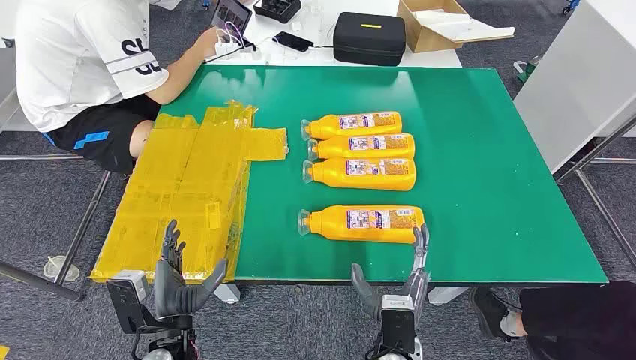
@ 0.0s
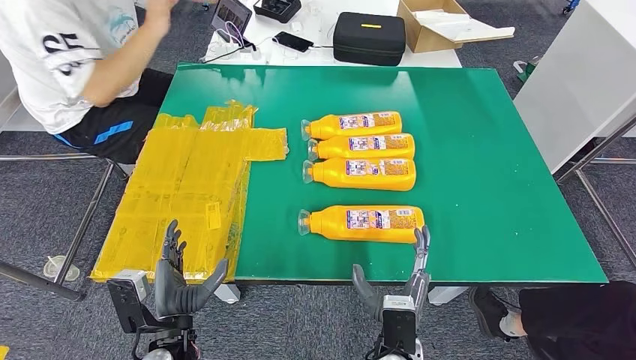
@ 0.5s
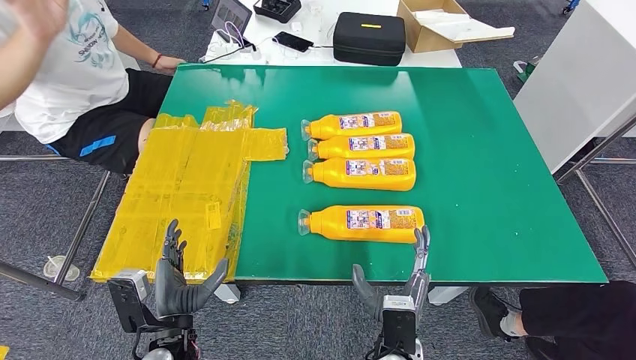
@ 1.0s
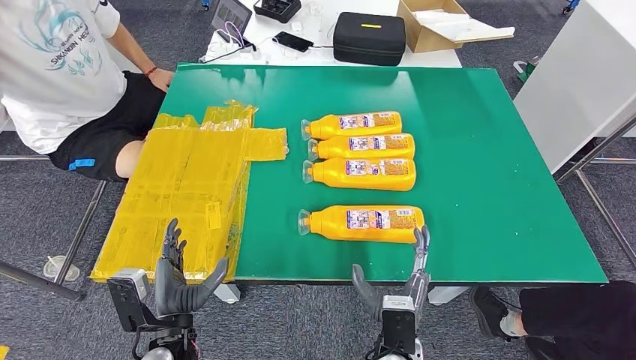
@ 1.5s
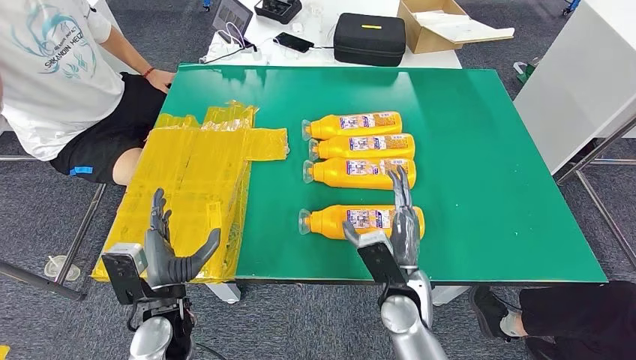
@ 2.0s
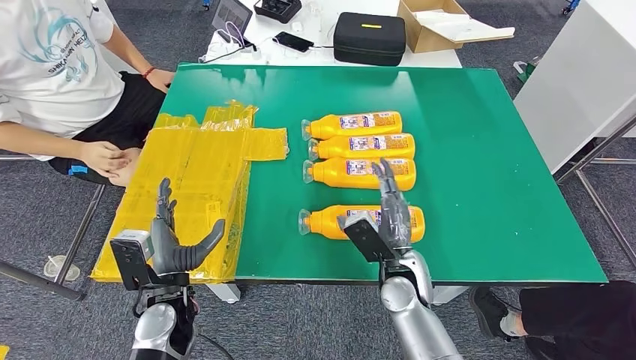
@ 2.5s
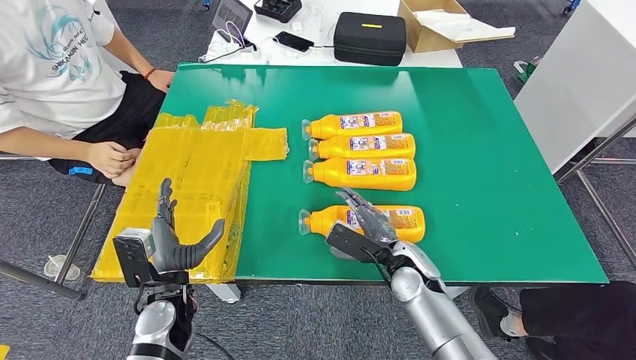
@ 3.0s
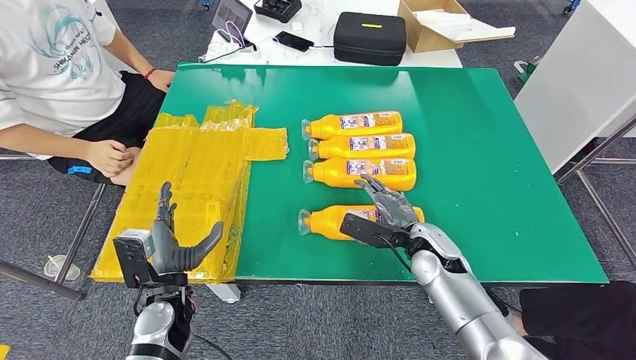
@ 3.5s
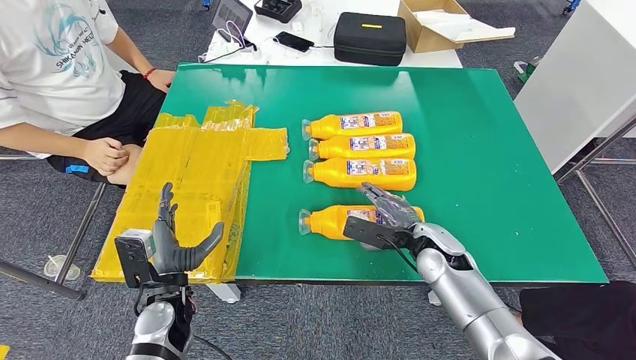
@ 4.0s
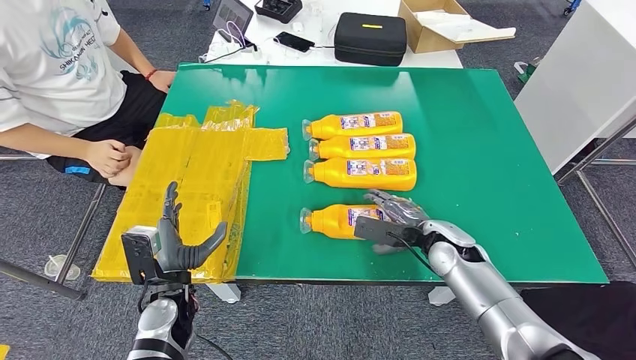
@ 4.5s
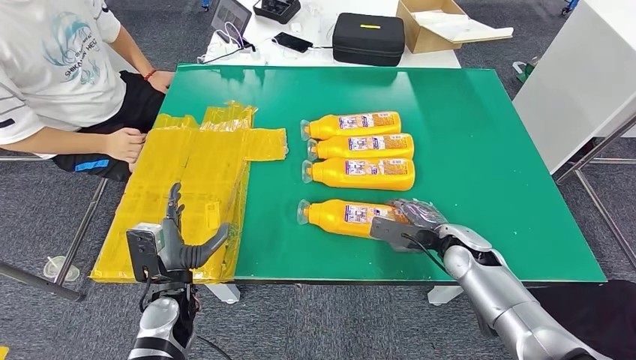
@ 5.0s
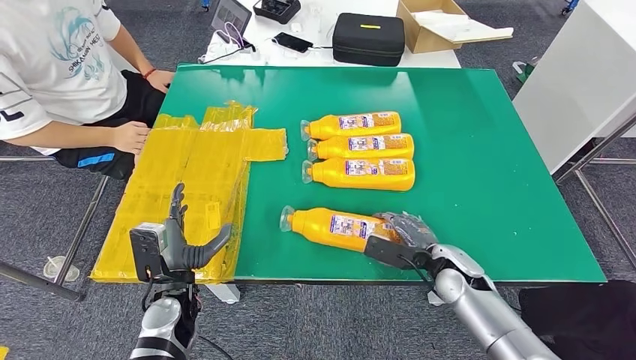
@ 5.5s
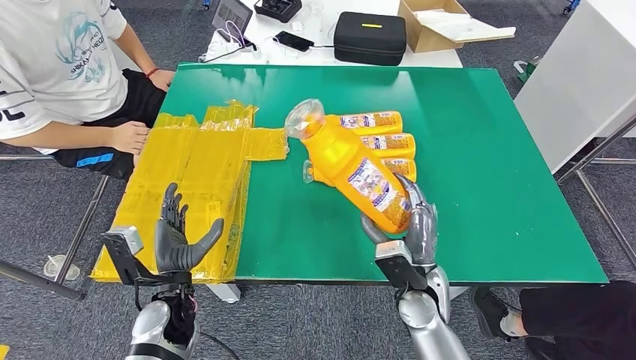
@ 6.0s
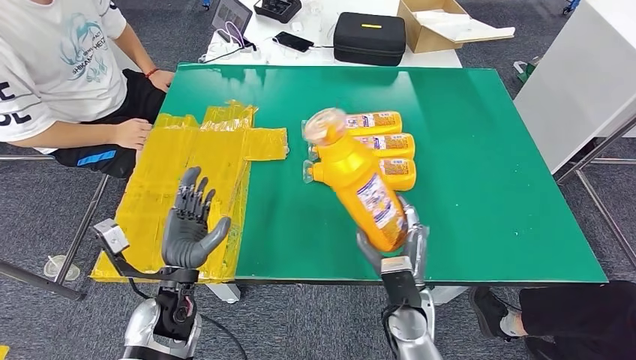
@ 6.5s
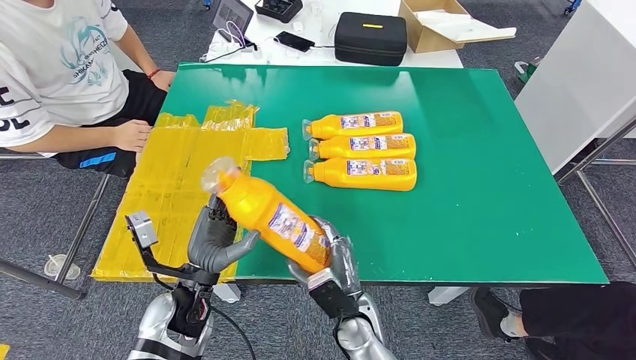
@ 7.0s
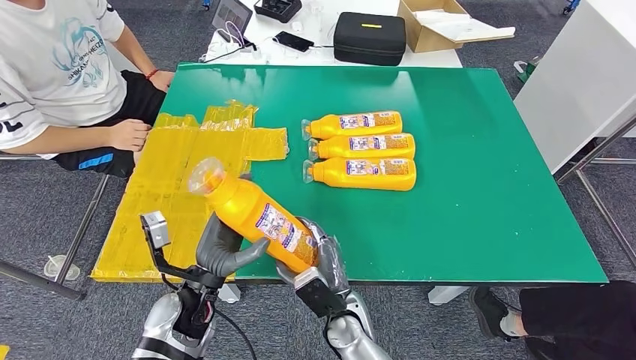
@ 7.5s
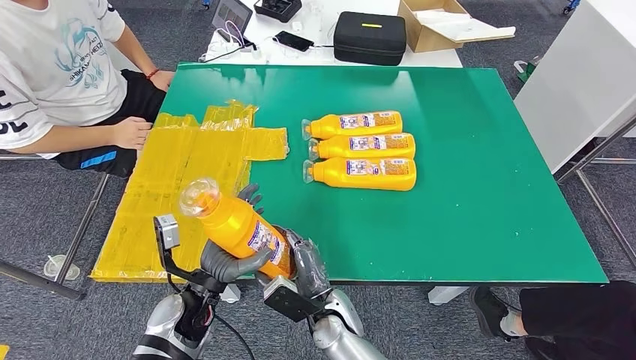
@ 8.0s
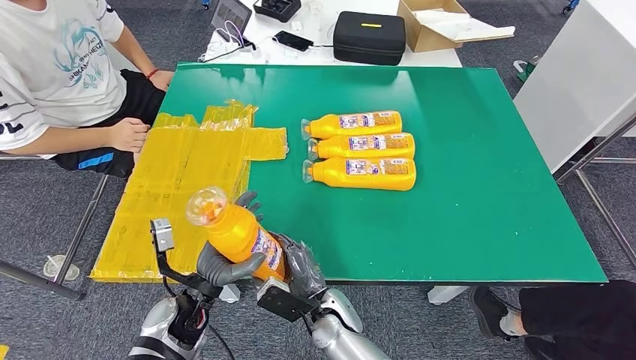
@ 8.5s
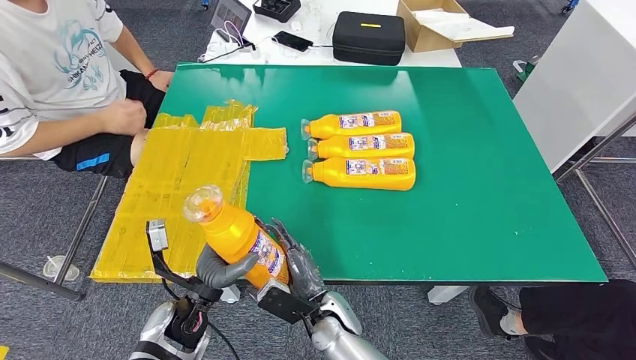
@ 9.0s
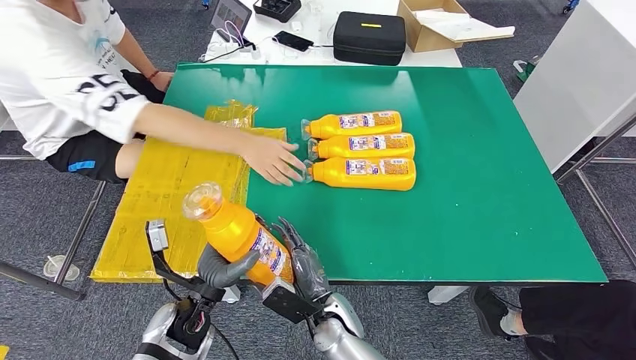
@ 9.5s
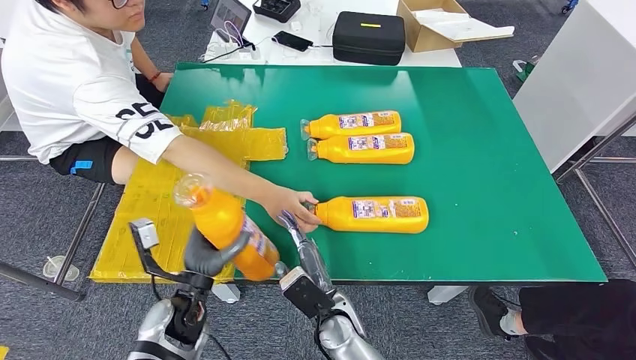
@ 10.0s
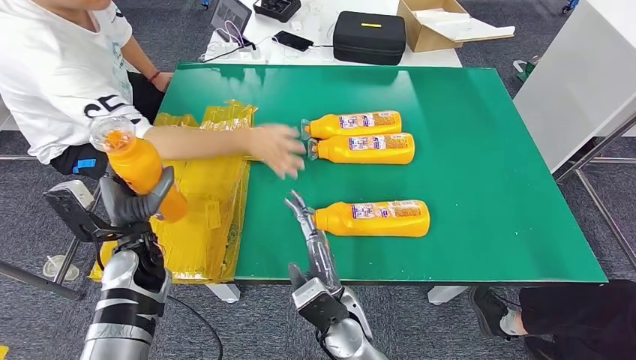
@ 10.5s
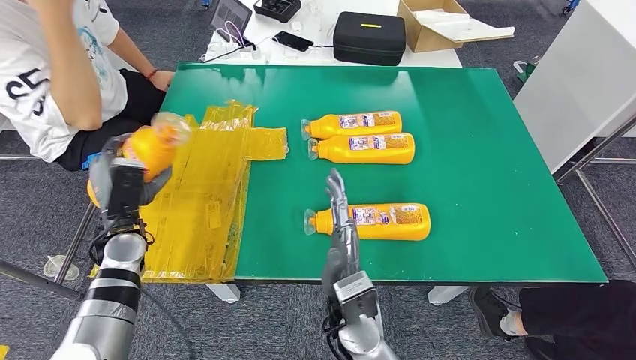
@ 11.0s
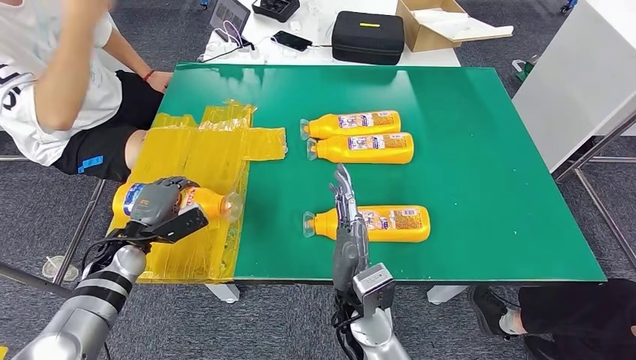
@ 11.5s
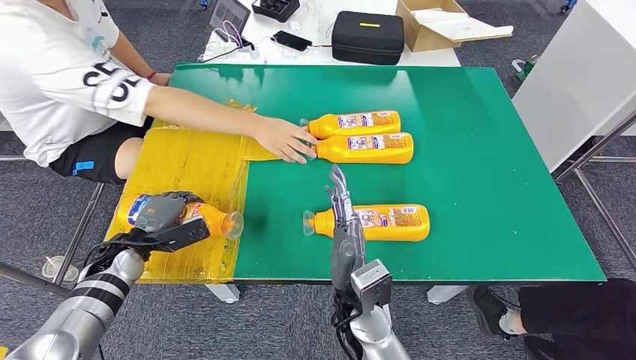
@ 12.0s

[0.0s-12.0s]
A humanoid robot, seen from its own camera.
Step, 0.0s to 8.5s: Take the bottle from the table.
2.0s to 4.0s: The right hand travels to the right and forward by roughly 10 cm.
4.0s to 6.0s: The right hand is displaced backward and to the left by approximately 10 cm.
6.0s to 8.0s: The right hand moves to the left and downward, about 15 cm.

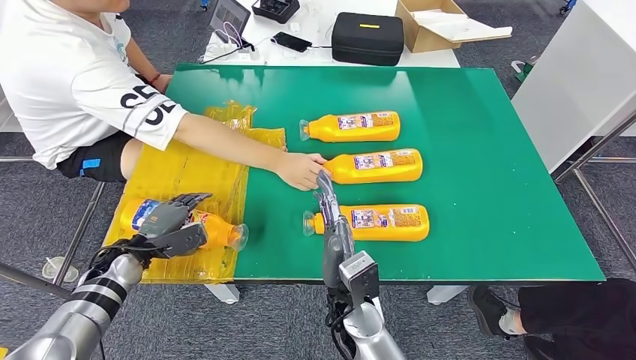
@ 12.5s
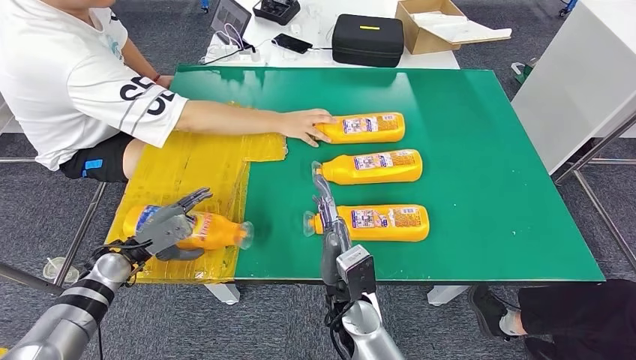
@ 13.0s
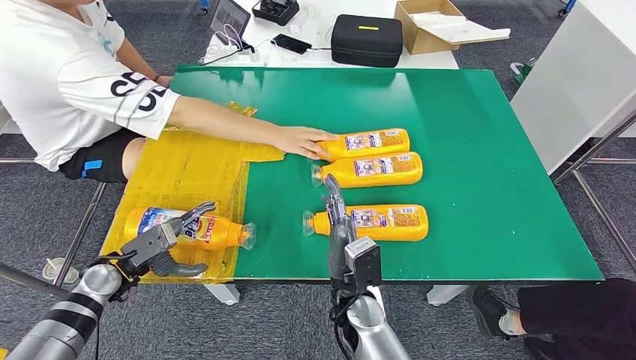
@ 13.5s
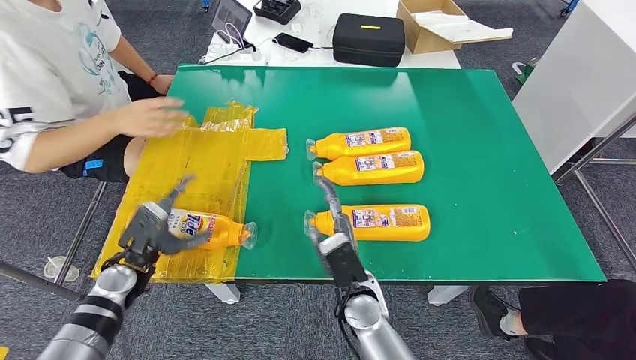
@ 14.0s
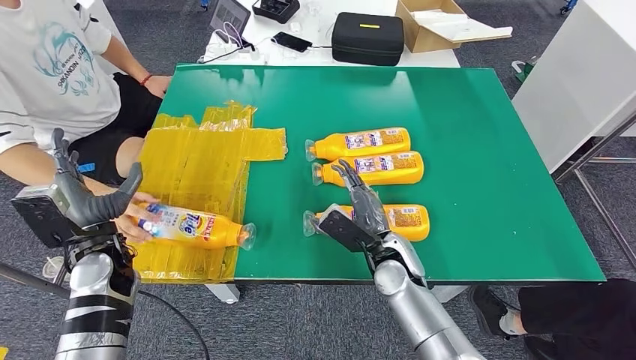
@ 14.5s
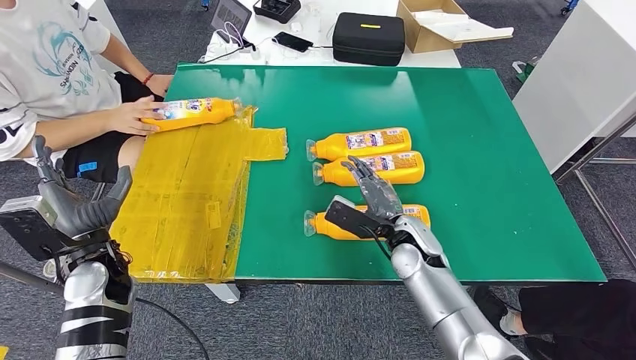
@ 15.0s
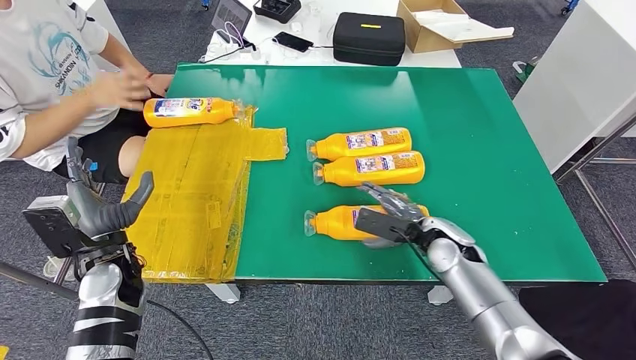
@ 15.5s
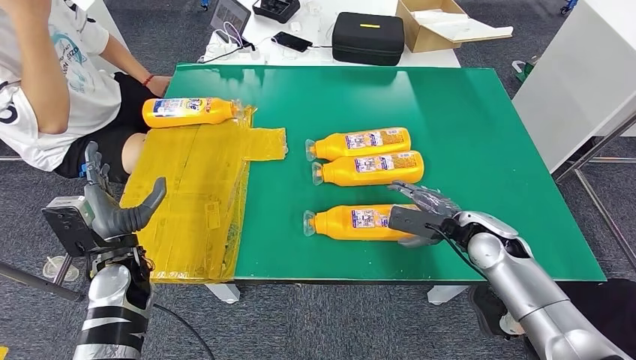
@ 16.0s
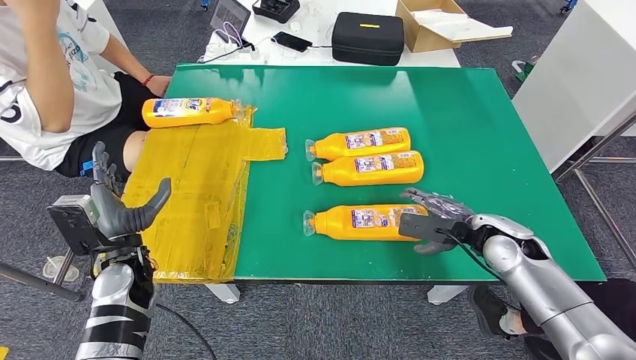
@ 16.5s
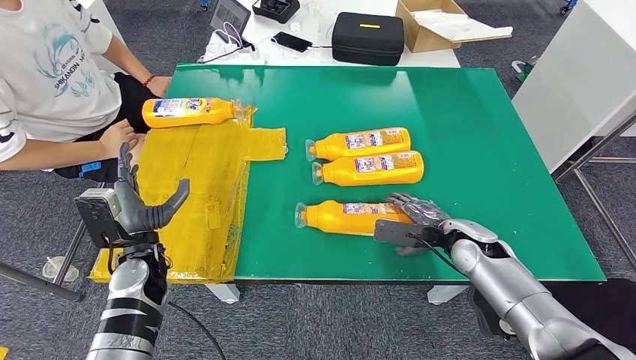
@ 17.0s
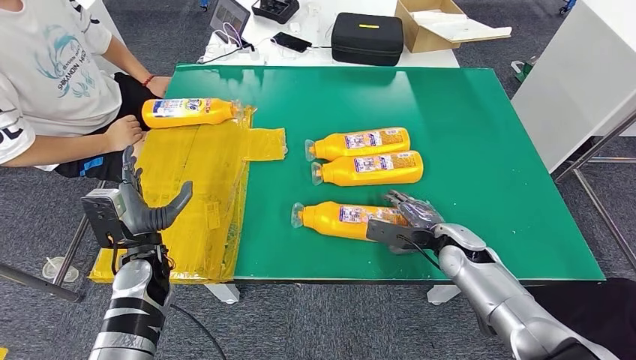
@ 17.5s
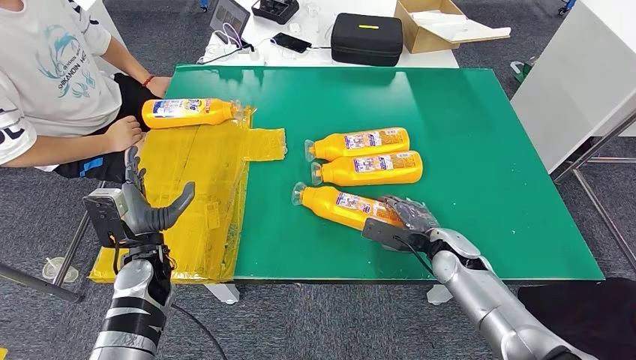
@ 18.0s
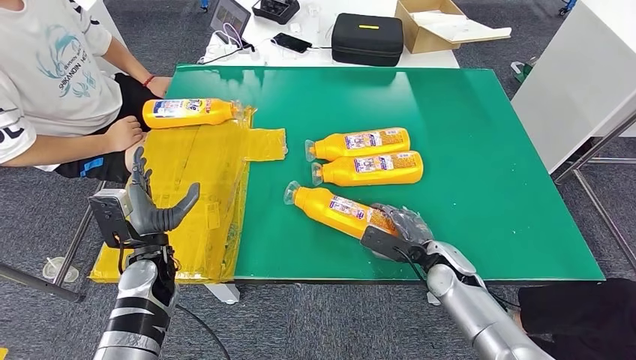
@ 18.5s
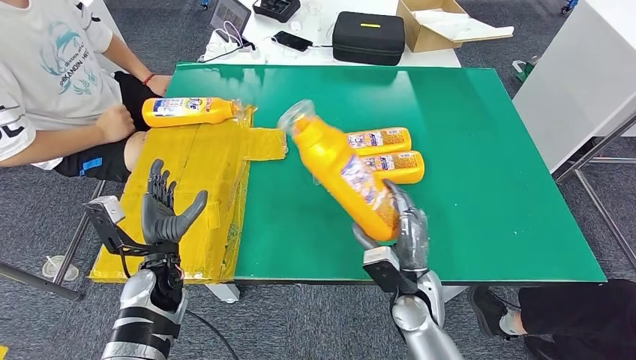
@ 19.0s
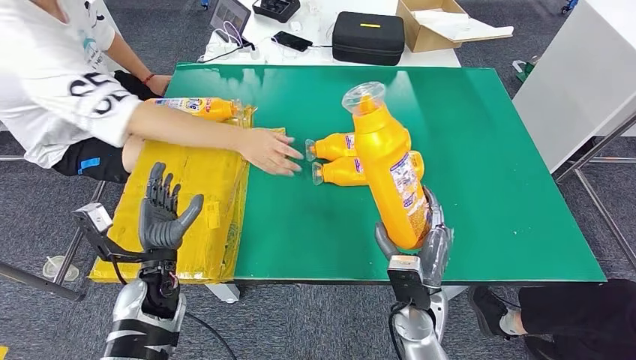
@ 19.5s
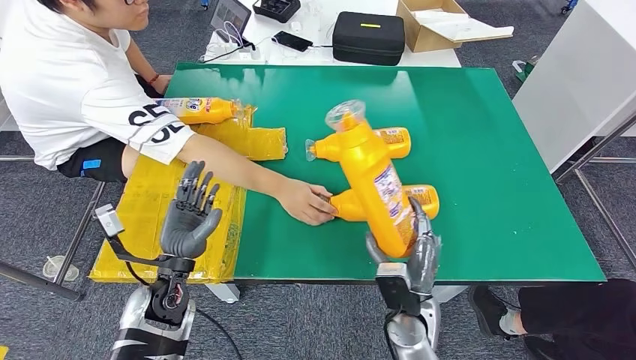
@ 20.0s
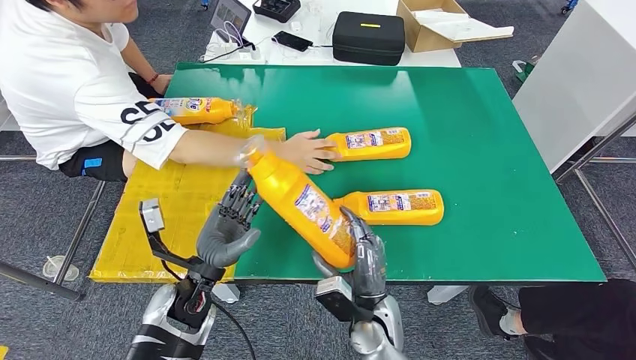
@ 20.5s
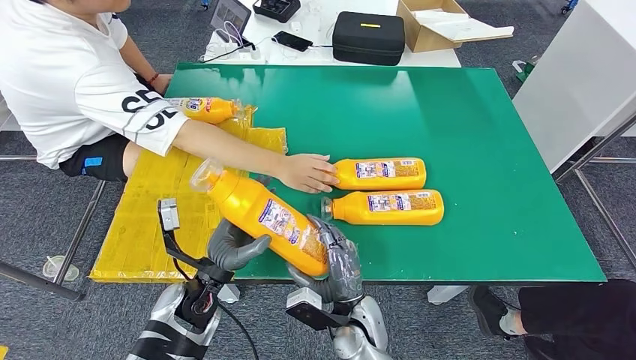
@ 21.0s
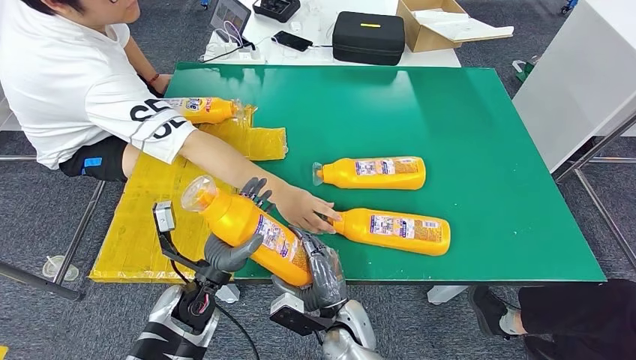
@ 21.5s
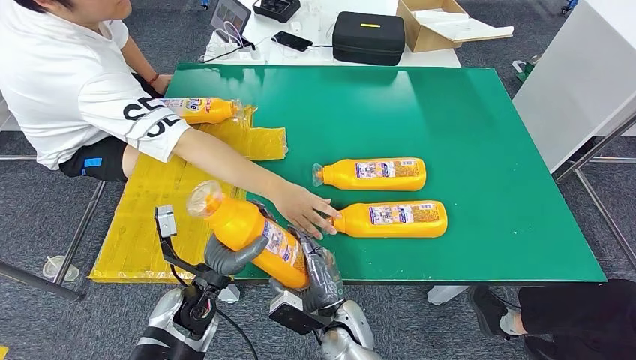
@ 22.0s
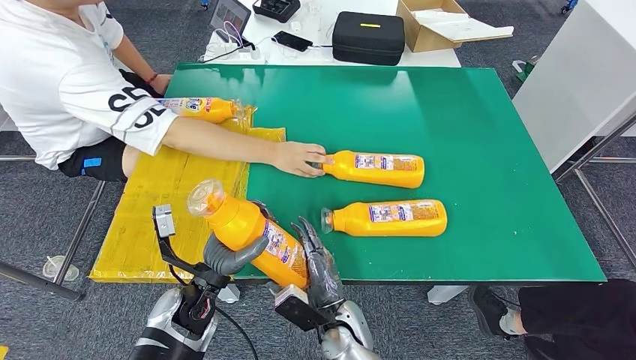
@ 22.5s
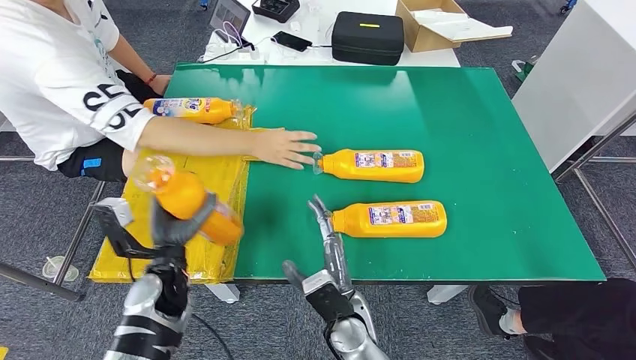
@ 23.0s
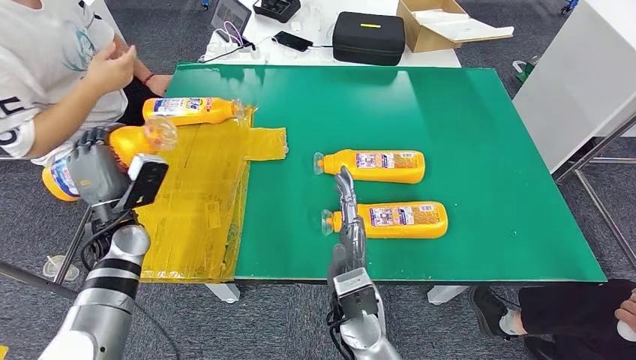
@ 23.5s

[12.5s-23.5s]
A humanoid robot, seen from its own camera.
Step, 13.5s to 19.0s: Pick up the bottle from the table.
